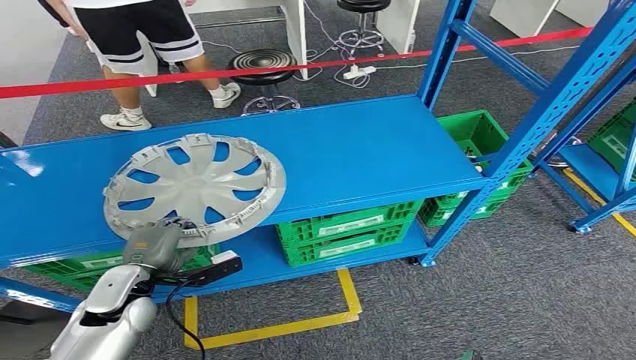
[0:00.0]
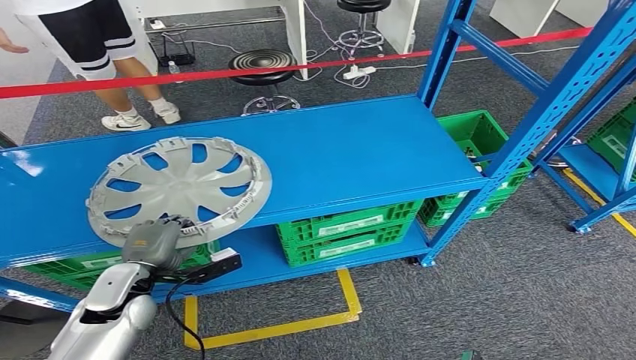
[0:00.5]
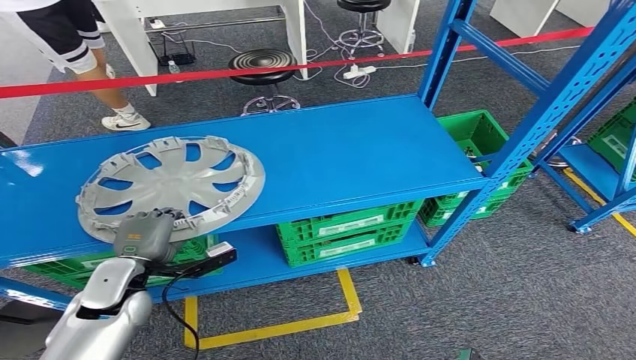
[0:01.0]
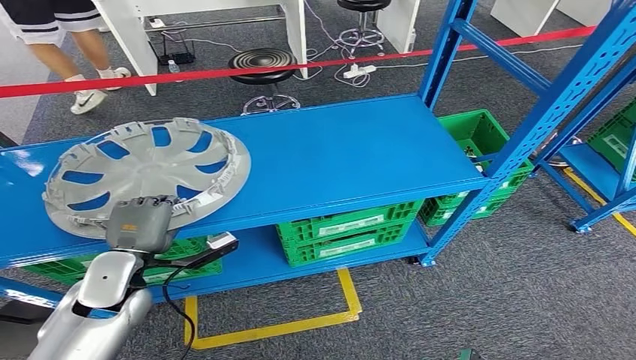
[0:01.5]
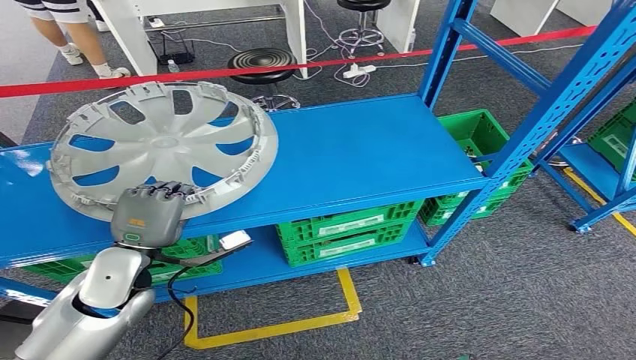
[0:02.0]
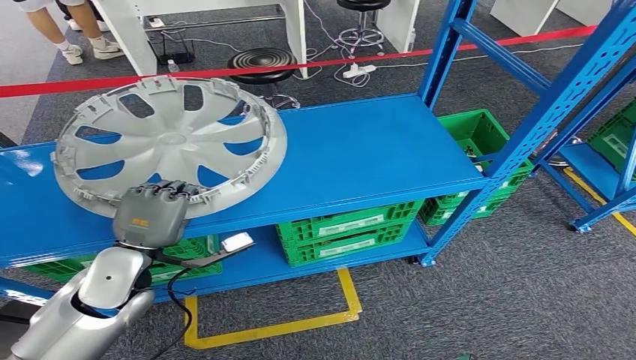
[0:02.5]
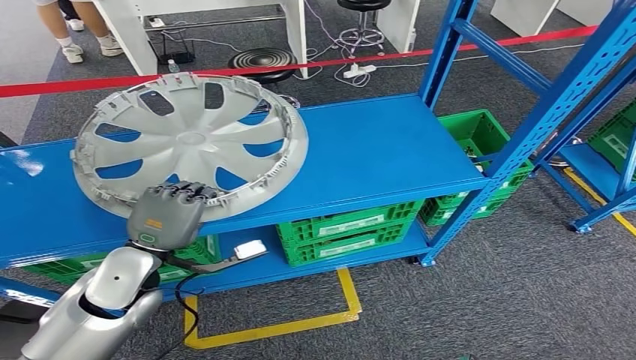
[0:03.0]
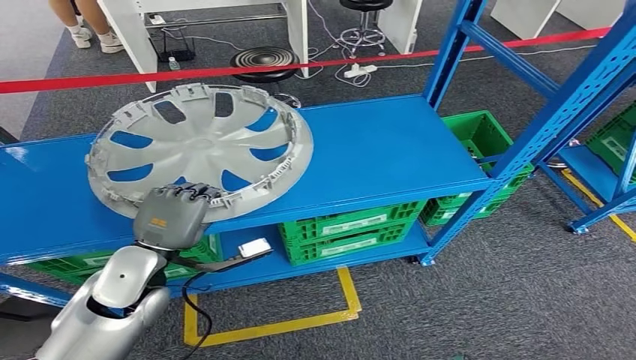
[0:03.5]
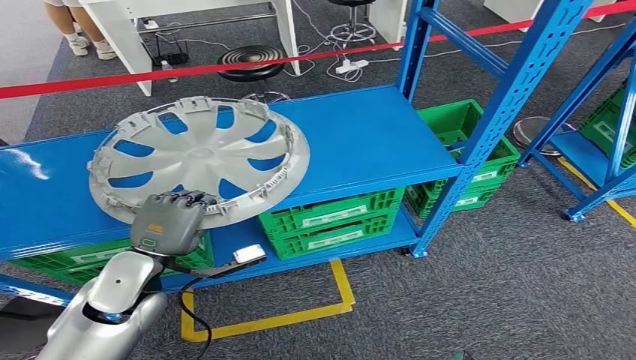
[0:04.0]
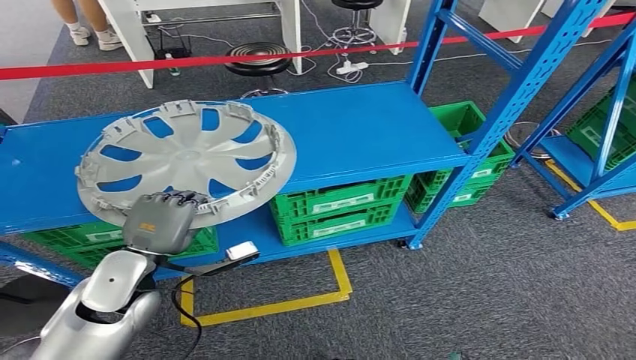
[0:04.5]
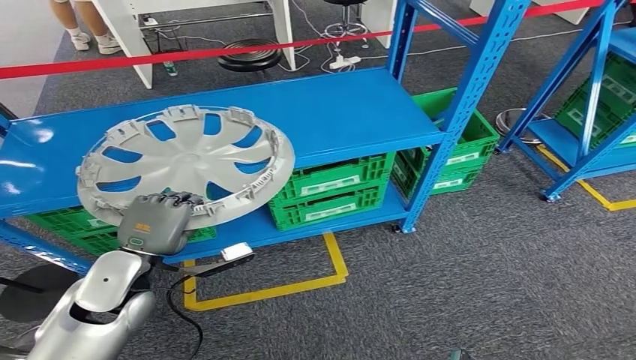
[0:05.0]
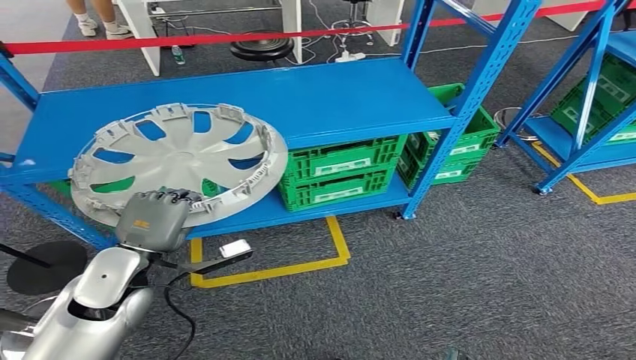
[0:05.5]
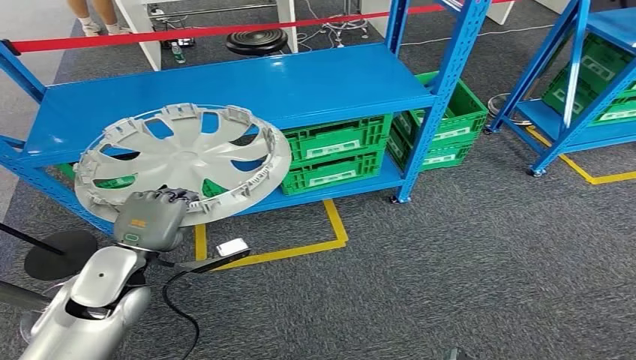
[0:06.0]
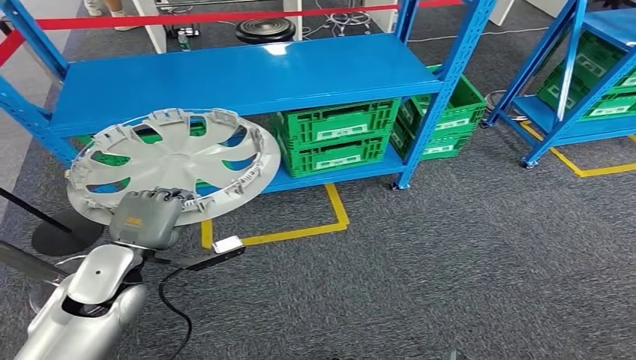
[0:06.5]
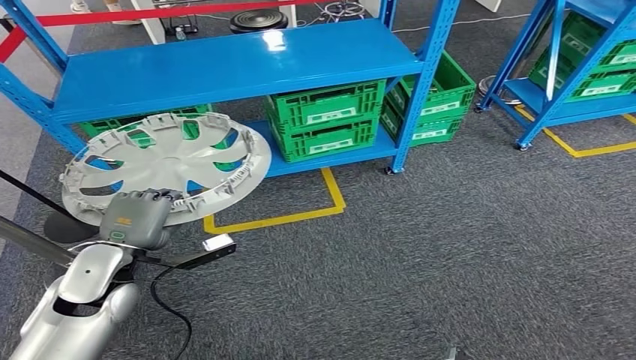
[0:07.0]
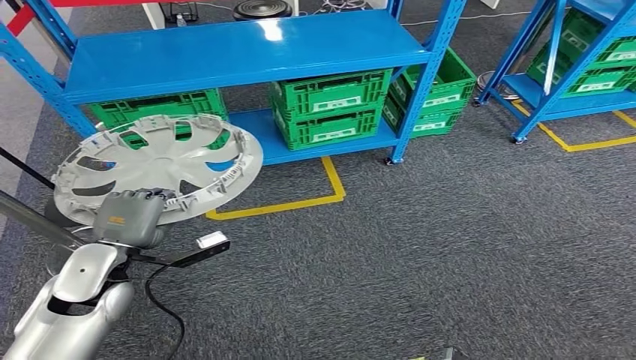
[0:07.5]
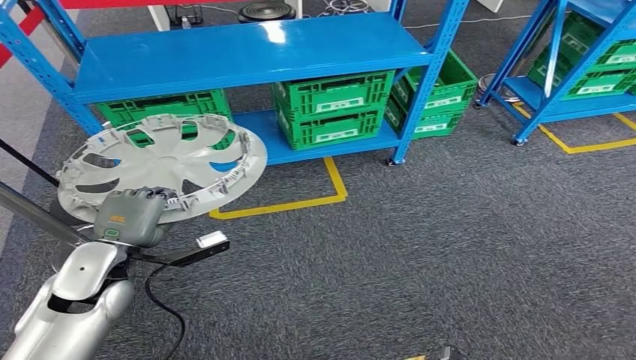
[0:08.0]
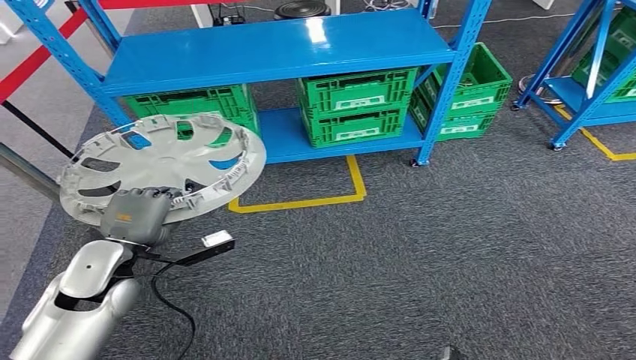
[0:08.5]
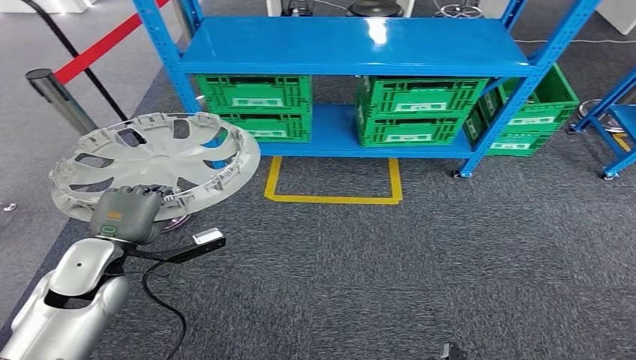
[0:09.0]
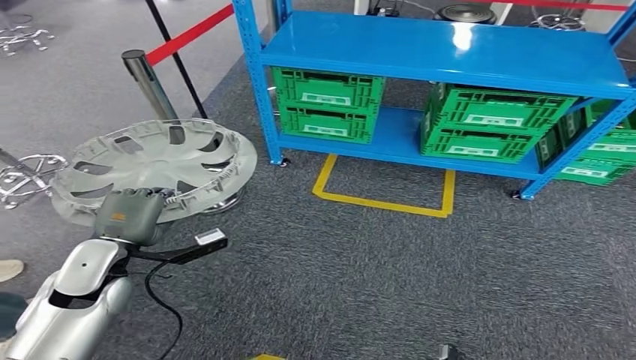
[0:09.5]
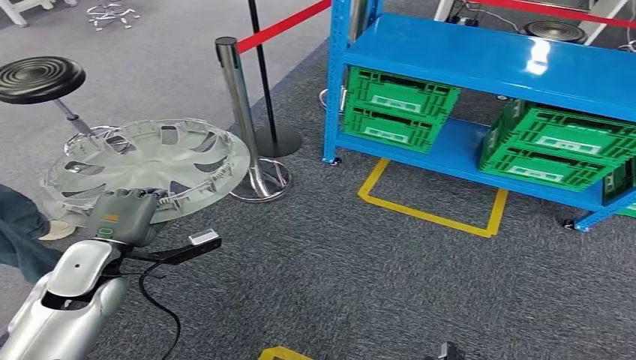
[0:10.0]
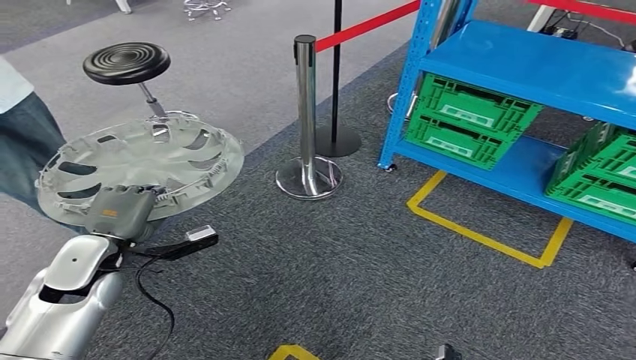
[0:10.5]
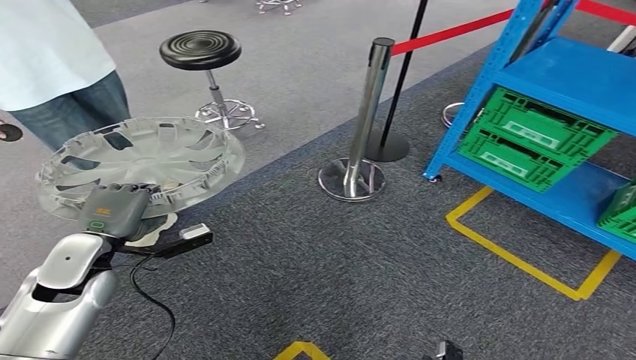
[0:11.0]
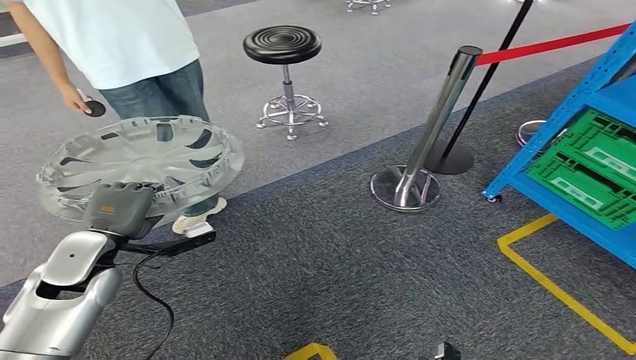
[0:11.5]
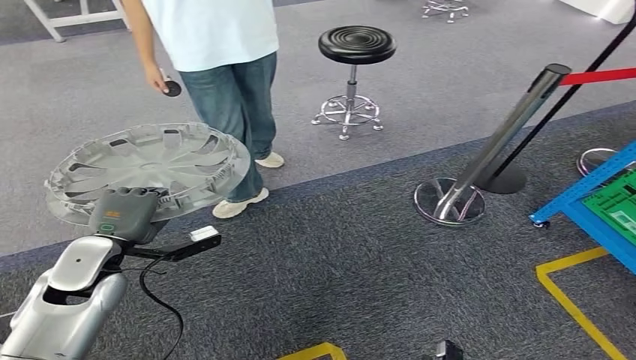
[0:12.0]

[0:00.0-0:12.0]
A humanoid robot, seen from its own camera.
Step, 0:00.0 to 0:03.0: Pick up the small component from the shelf.

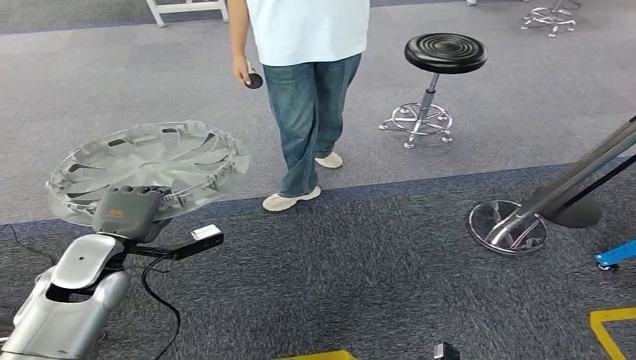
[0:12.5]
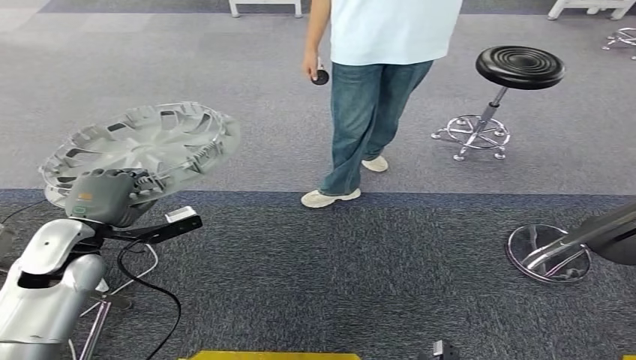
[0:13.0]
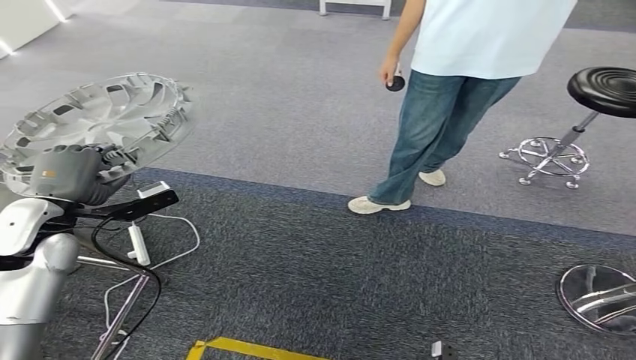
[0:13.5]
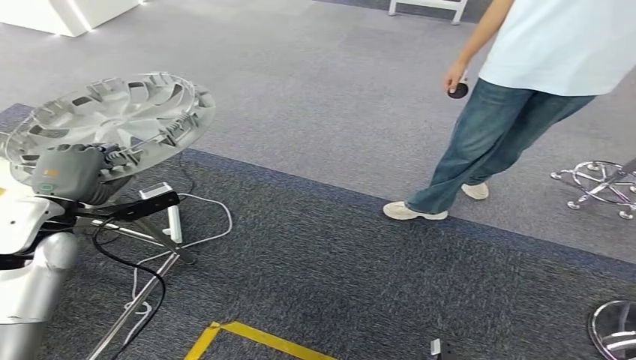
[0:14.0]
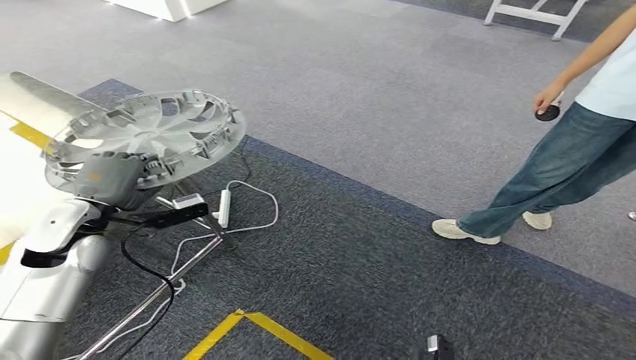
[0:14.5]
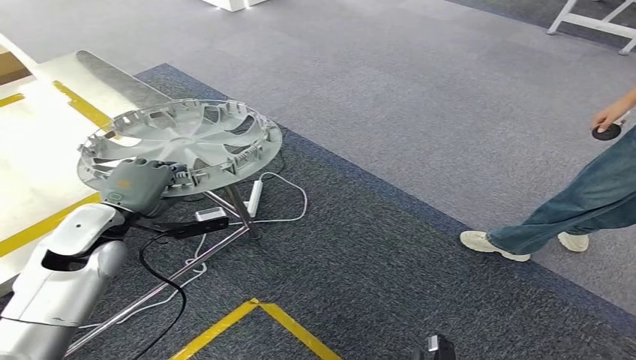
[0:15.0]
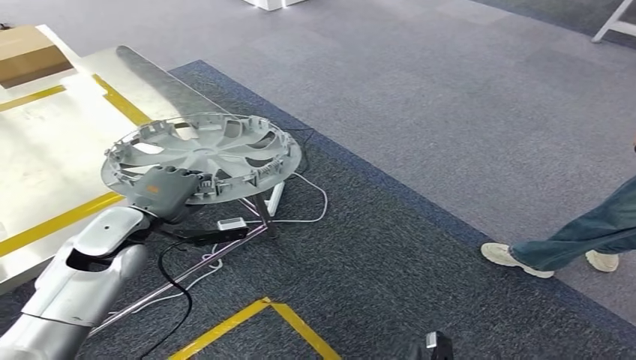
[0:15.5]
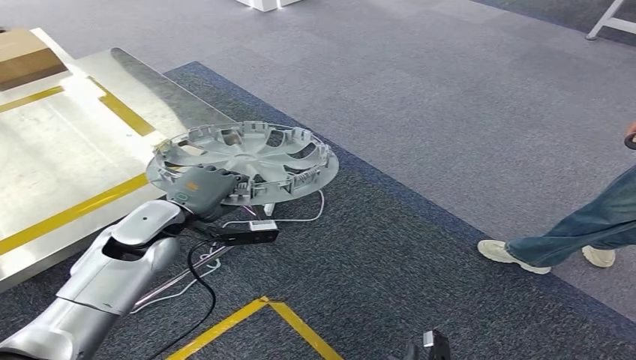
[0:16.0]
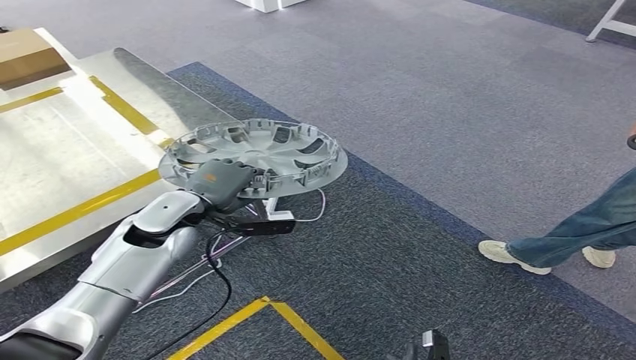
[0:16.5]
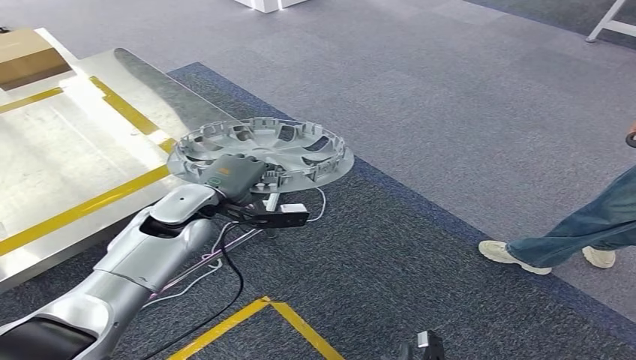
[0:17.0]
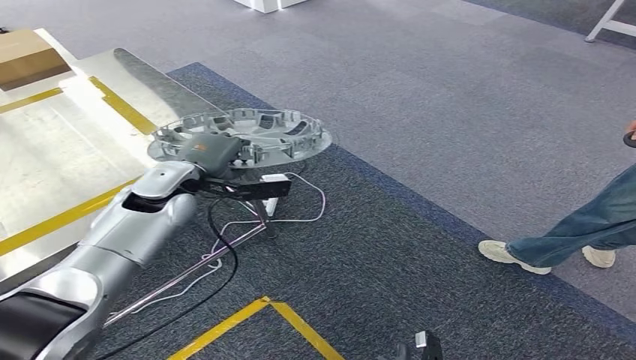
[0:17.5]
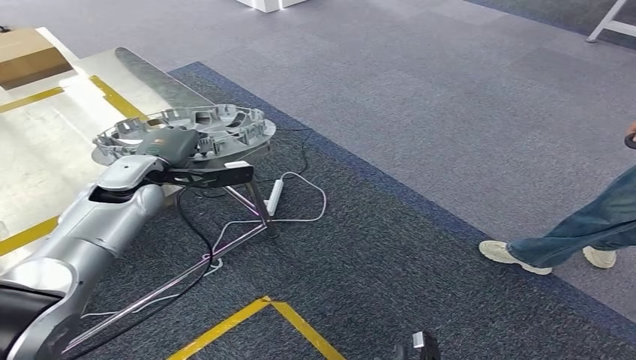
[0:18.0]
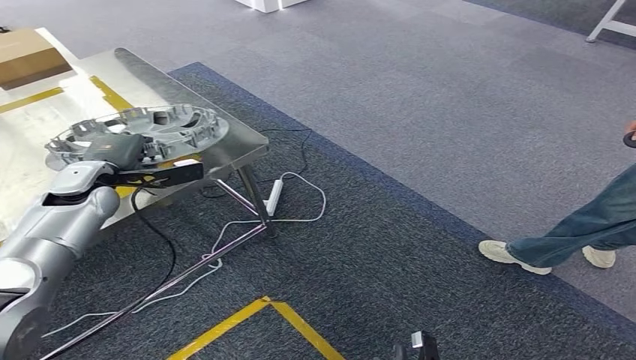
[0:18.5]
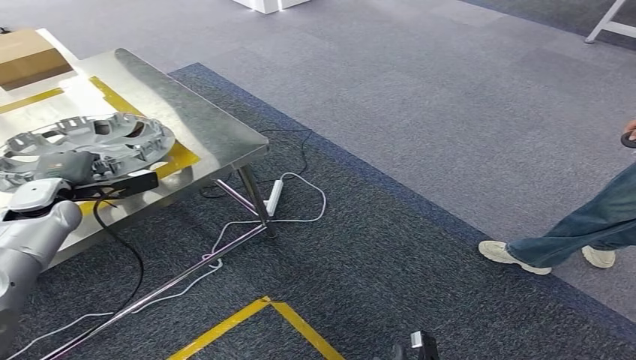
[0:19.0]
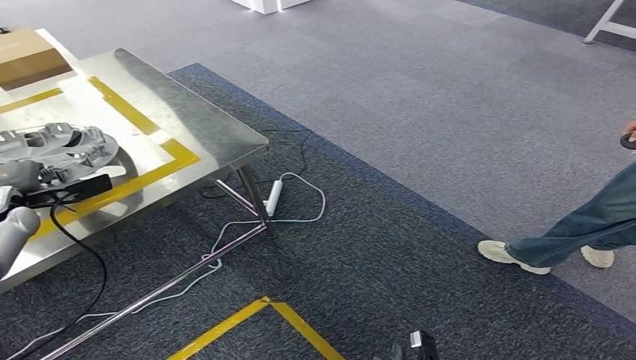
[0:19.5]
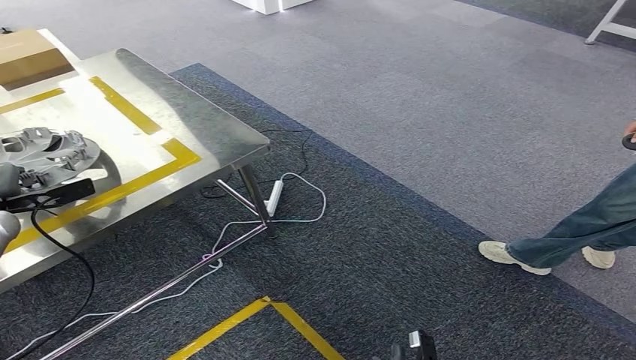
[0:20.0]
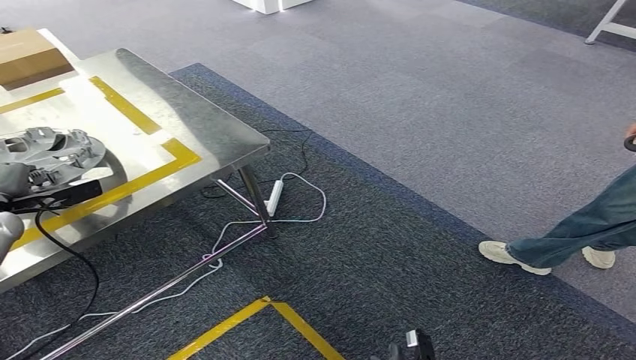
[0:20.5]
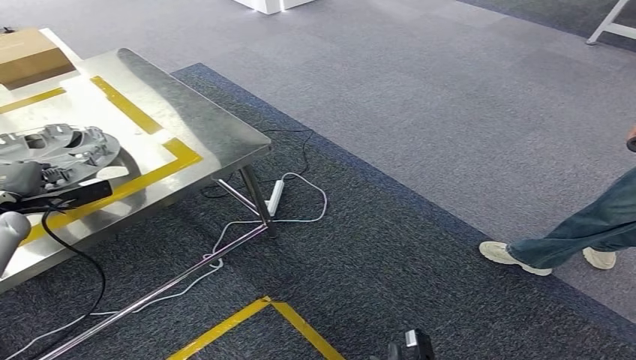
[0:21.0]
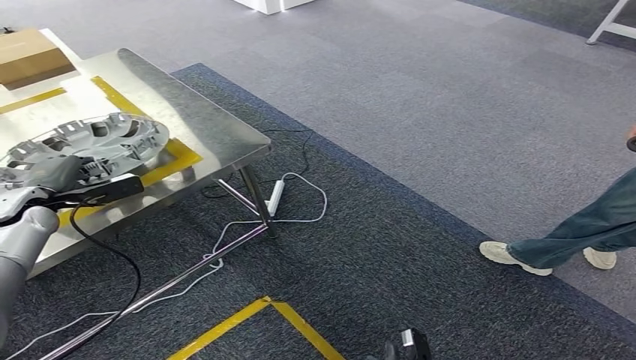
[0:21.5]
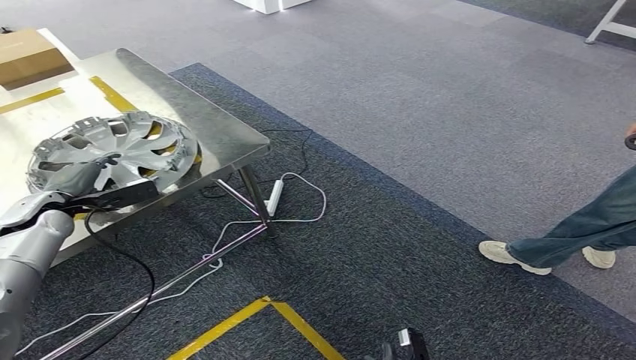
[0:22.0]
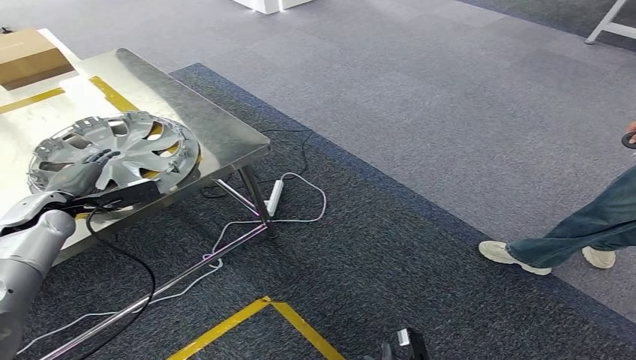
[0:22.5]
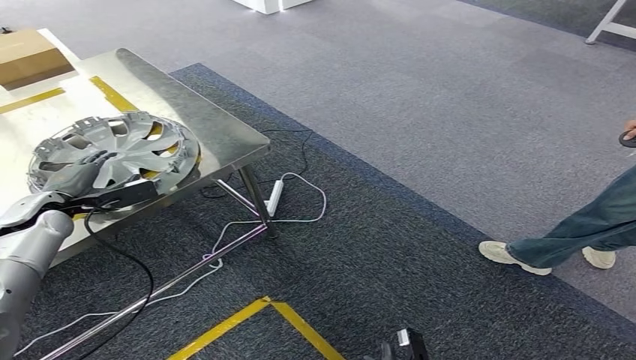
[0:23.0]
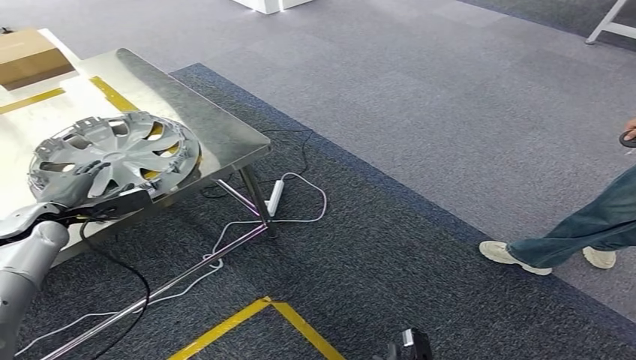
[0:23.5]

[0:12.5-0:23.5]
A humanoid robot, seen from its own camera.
Step, 0:12.5 to 0:16.5: Move the small component to the workbench.
0:16.0 to 0:18.0: The left hand goes about 10 cm forward.
0:18.0 to 0:20.0: The left hand is displaced to the left by approximately 25 cm.
0:20.0 to 0:21.5: The left hand is displaced to the right by roughly 5 cm.
0:21.5 to 0:23.5: There are only small adjustments of the hands.
